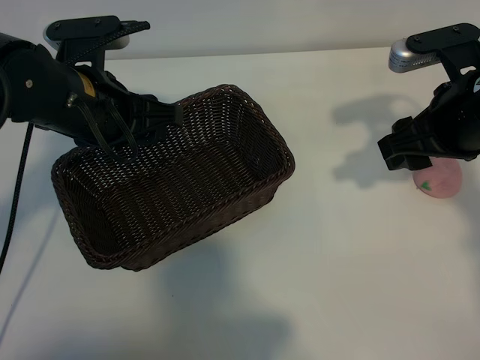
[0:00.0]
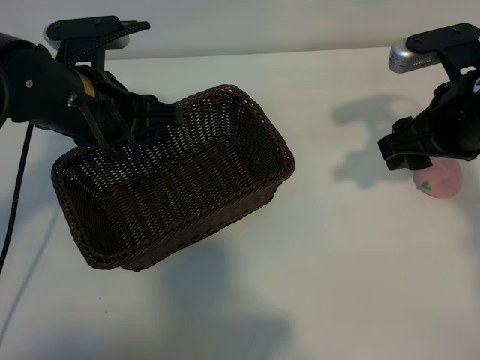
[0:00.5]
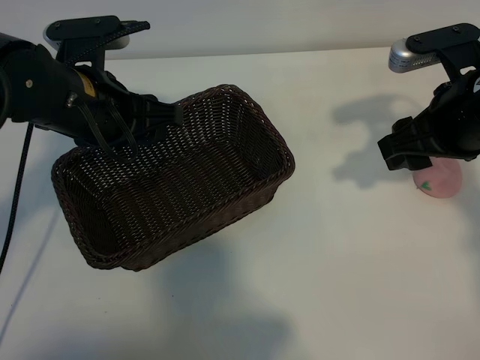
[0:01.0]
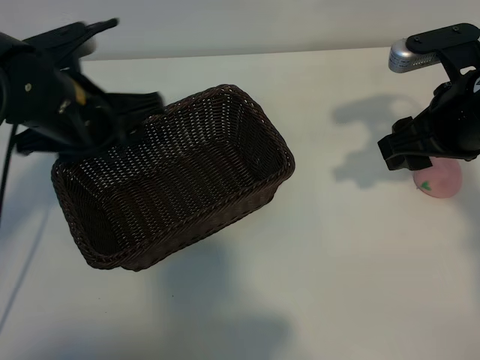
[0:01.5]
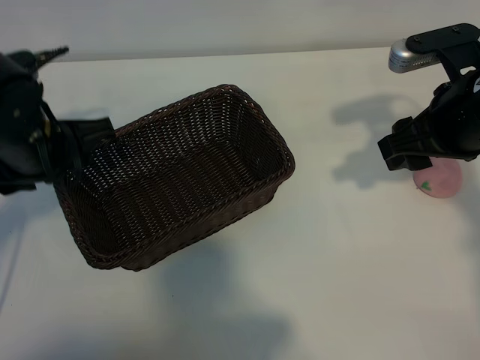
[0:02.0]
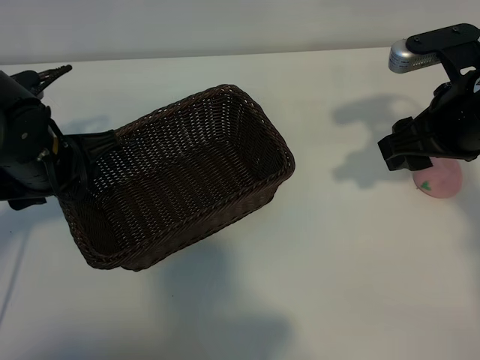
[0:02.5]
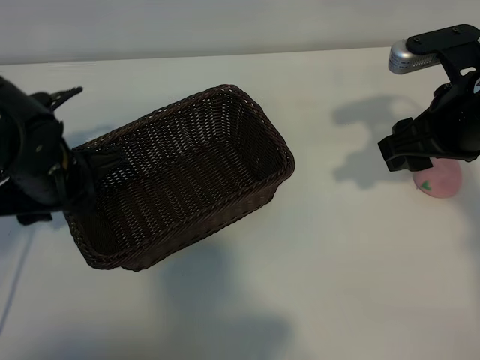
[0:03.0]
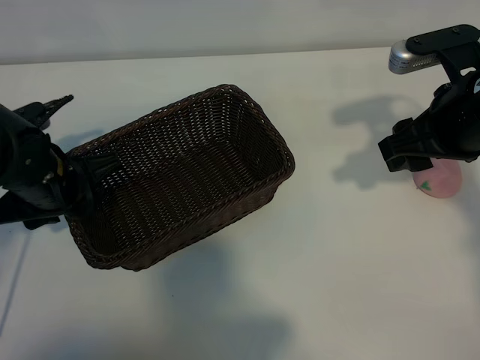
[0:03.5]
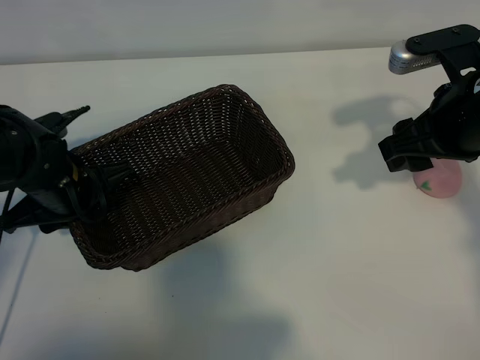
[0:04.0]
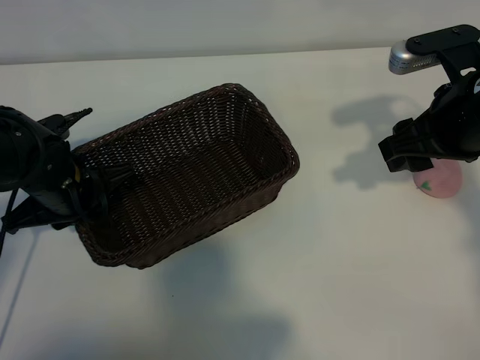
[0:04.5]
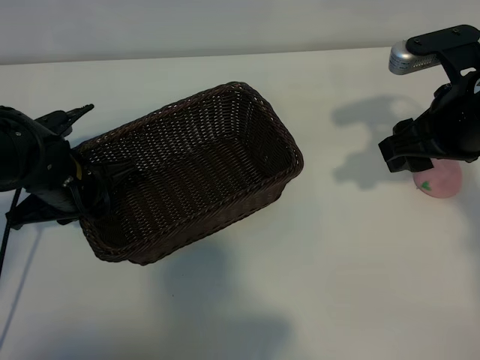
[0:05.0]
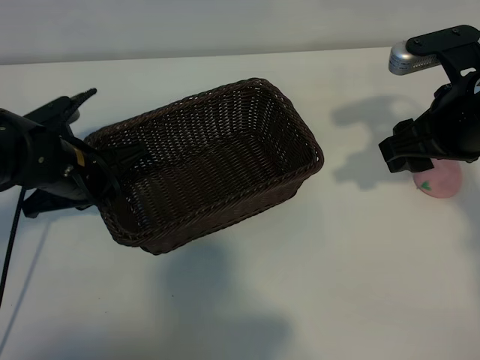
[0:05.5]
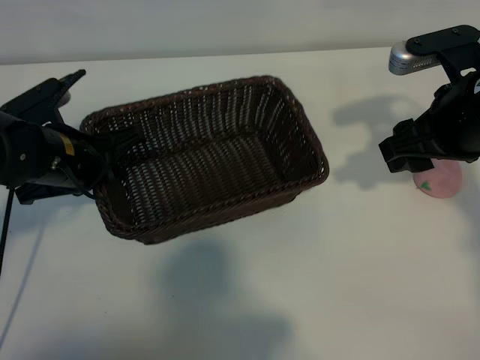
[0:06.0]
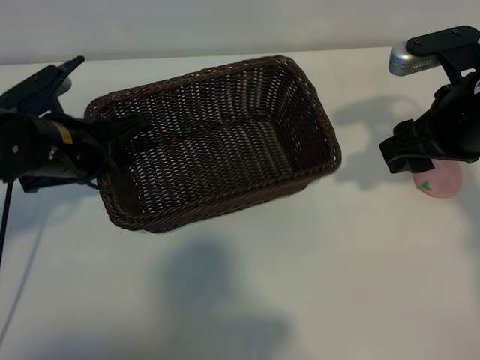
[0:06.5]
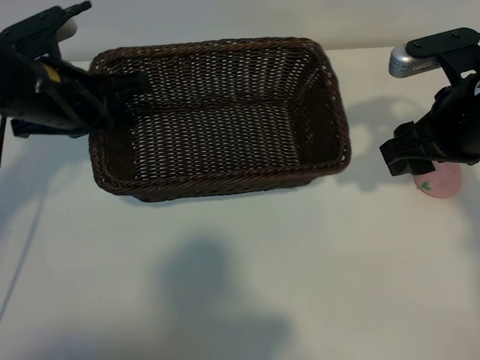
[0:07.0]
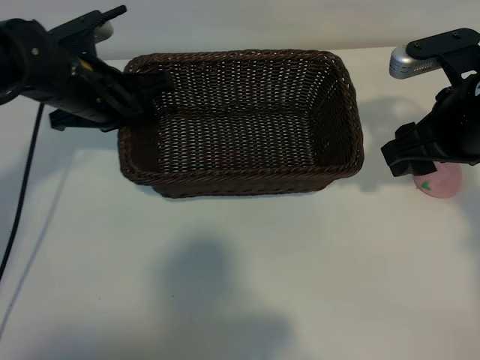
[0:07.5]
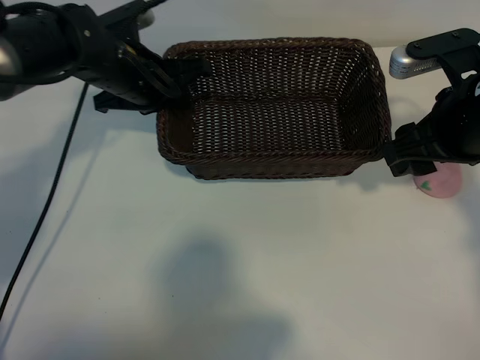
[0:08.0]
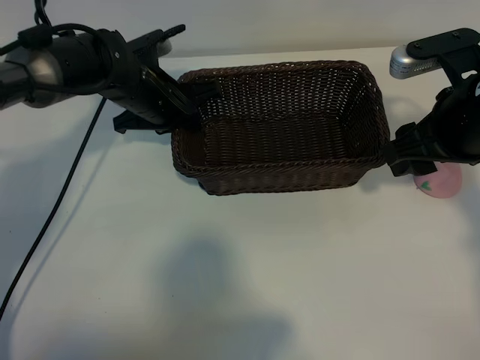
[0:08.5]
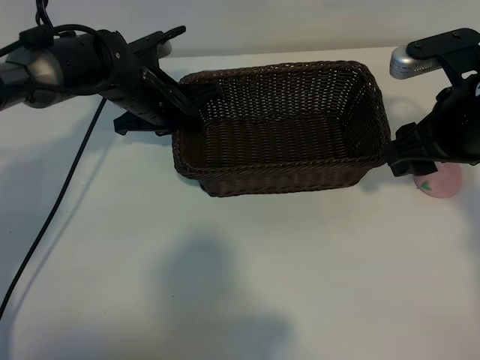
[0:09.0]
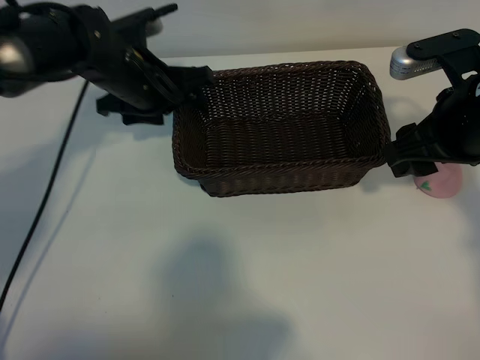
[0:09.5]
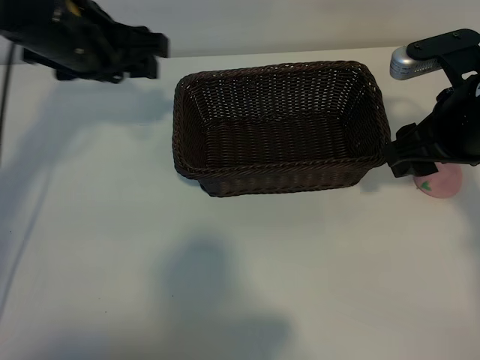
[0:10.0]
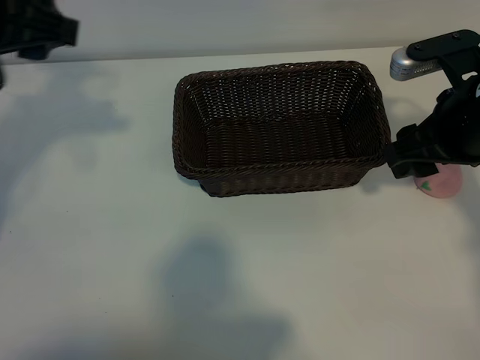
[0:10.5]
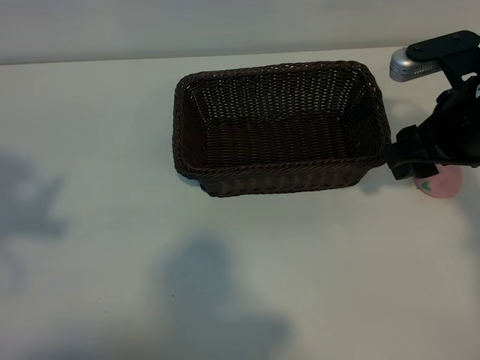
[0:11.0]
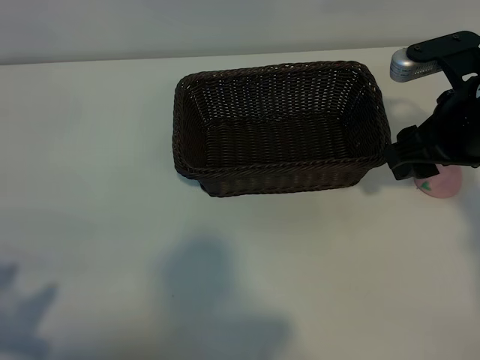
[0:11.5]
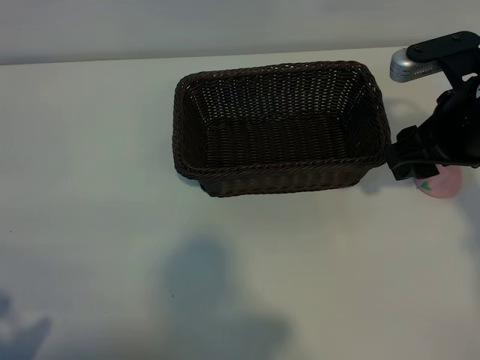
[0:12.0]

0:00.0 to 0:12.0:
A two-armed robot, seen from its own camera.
Task of the whole recording: pick up the peach and put it into the basket.
Step, 0:01.5 to 0:04.5: Grasp the basket with left gripper.
Step, 0:05.0 to 0:09.5: Place the basket in the center of view with left gripper.

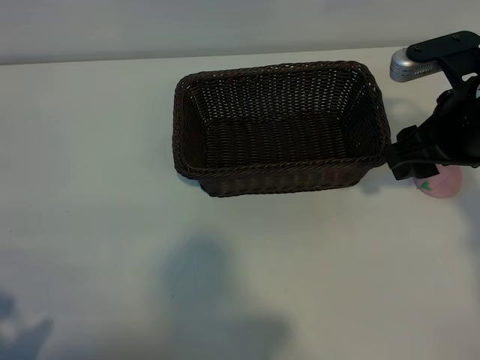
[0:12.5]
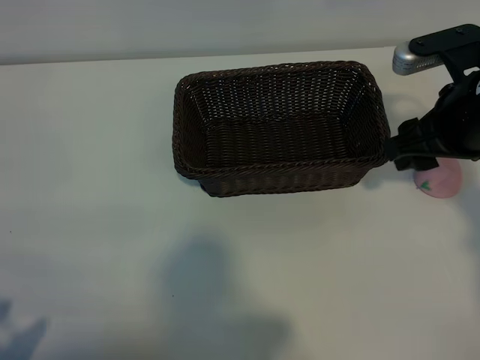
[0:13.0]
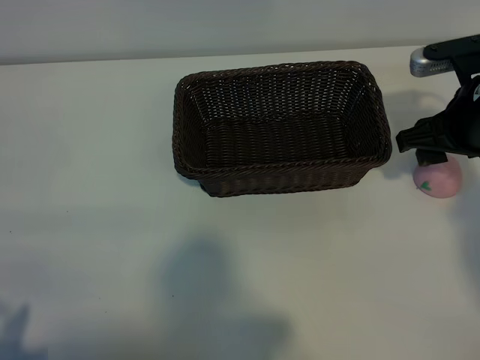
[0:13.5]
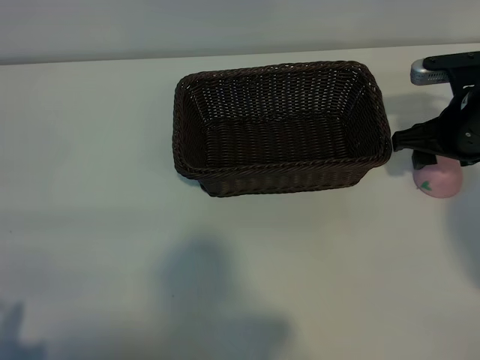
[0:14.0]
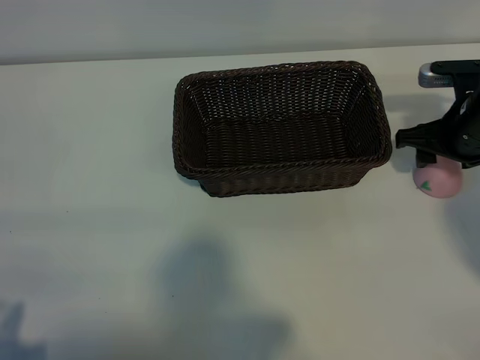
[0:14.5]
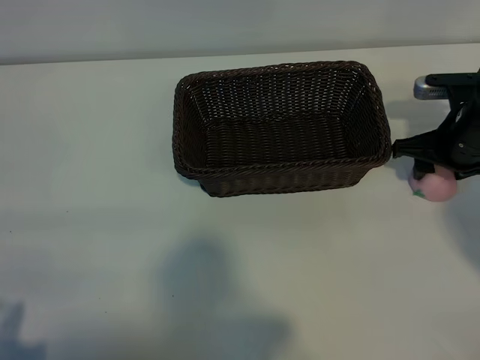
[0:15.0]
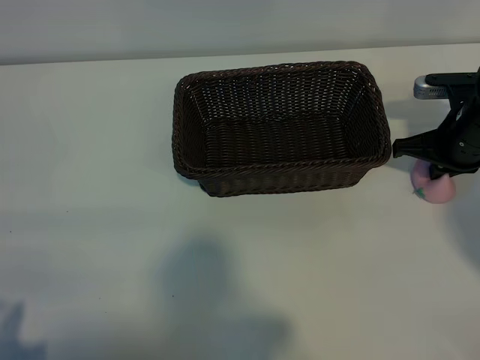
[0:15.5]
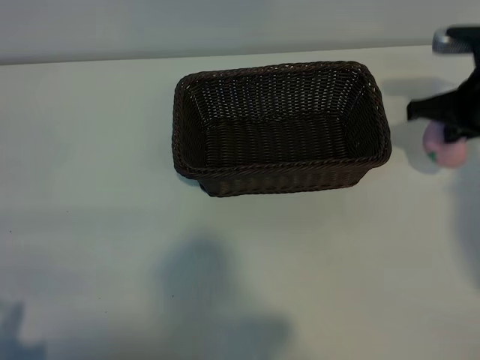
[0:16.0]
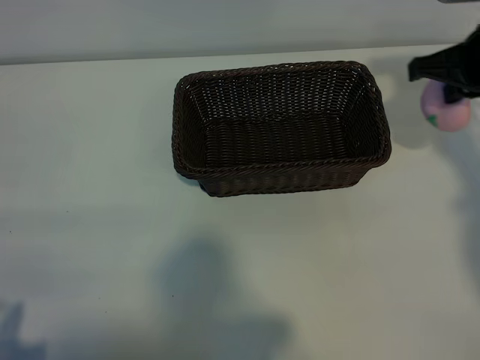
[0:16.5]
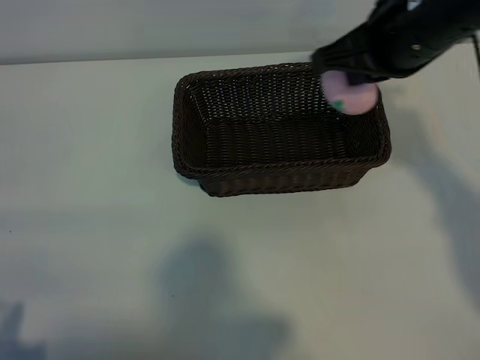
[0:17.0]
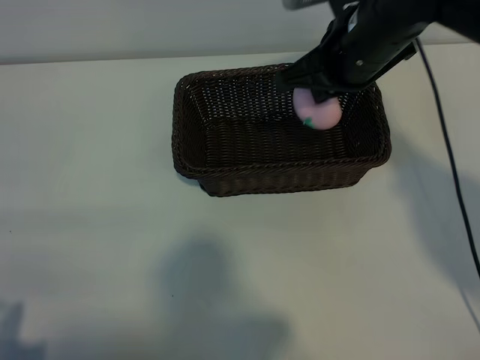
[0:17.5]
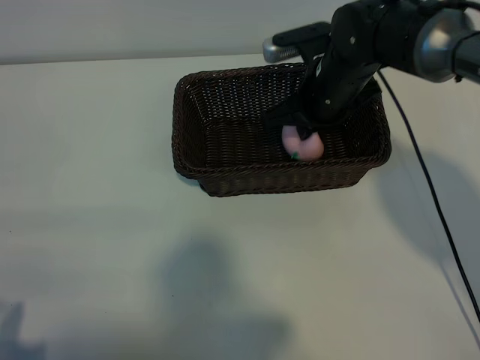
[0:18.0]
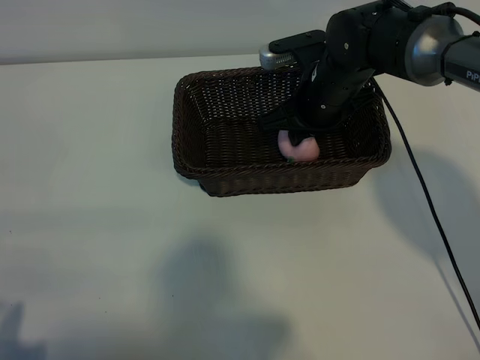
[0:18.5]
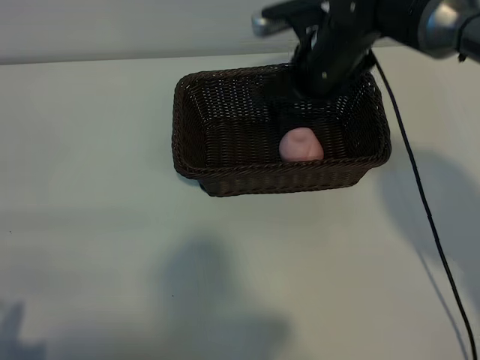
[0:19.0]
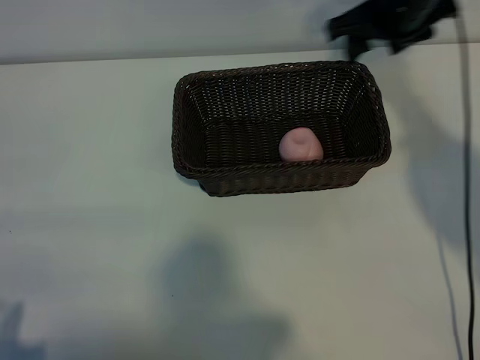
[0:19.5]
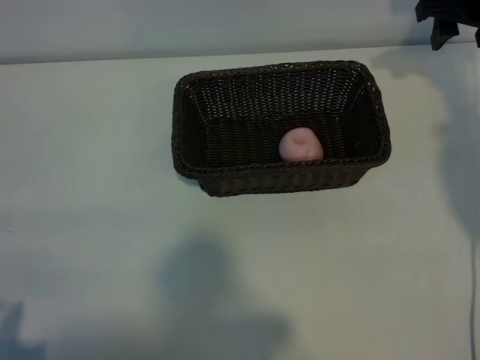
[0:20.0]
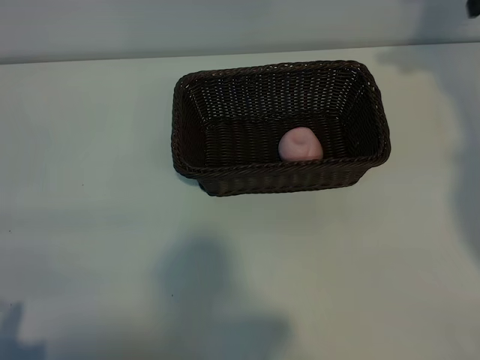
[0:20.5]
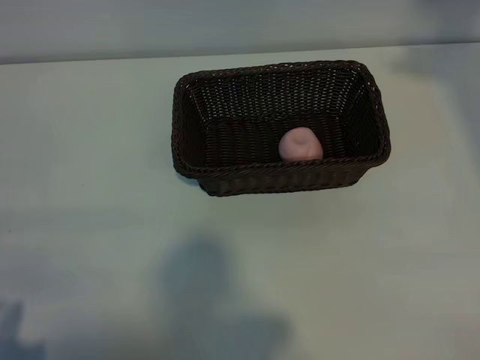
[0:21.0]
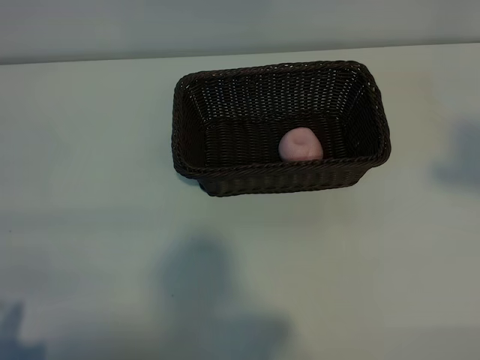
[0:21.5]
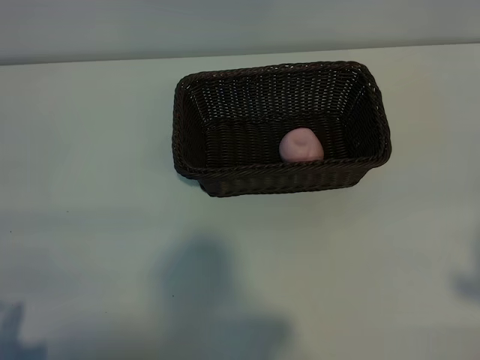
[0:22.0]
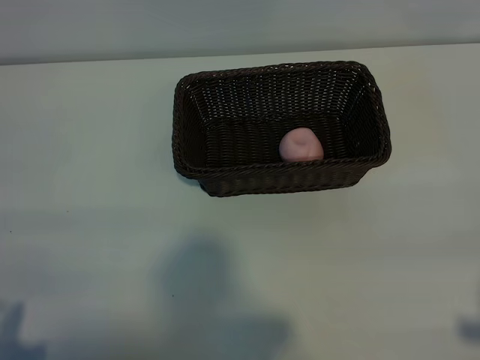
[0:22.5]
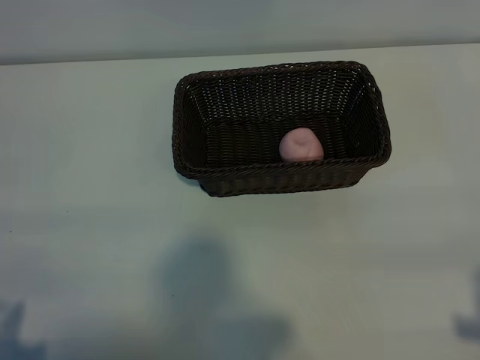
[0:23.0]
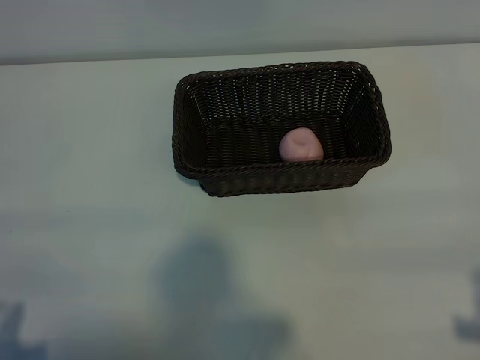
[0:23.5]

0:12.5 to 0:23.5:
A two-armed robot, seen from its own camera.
Task of the whole recording: pick up the peach and put it into the basket.
Step, 0:12.5 to 0:15.0: Grasp the peach with right gripper.
Step, 0:16.0 to 0:18.5: Place the peach in the basket with right gripper.

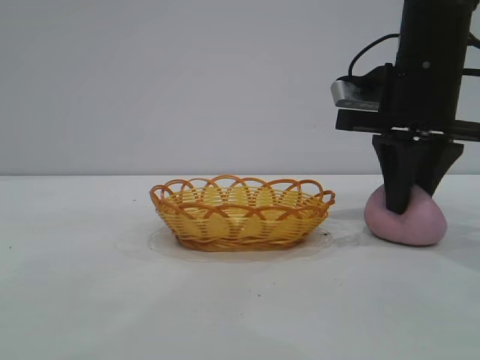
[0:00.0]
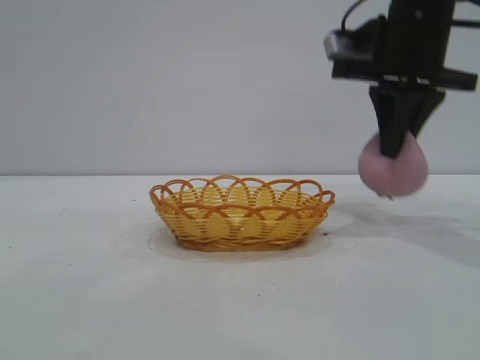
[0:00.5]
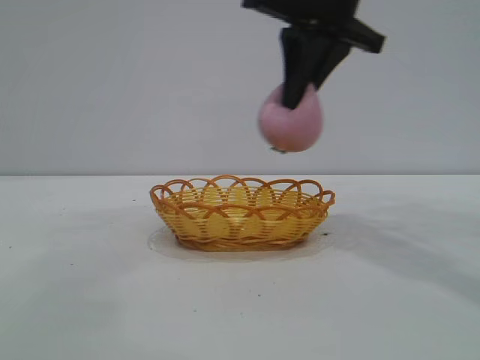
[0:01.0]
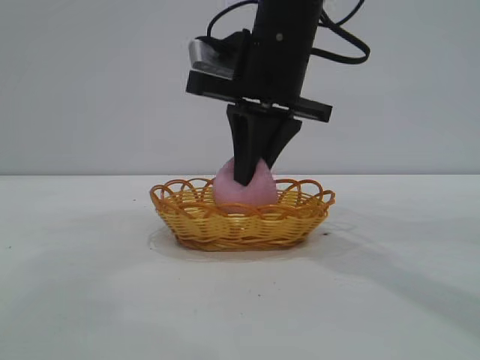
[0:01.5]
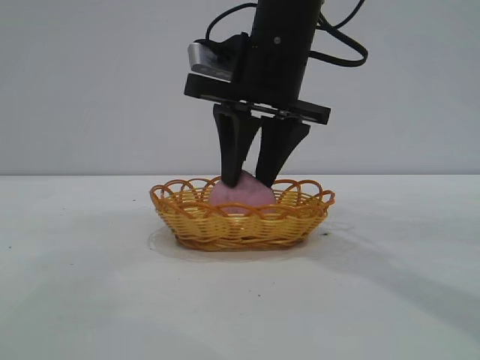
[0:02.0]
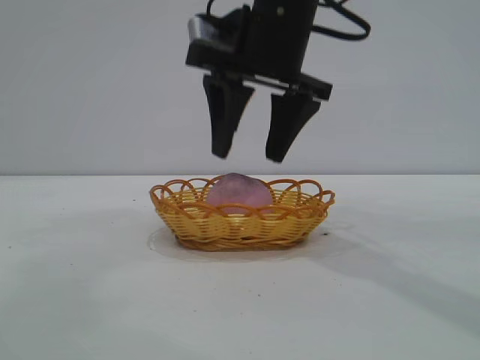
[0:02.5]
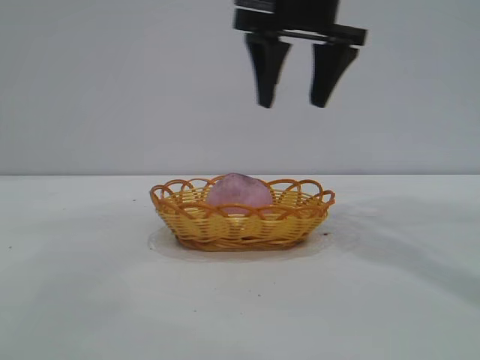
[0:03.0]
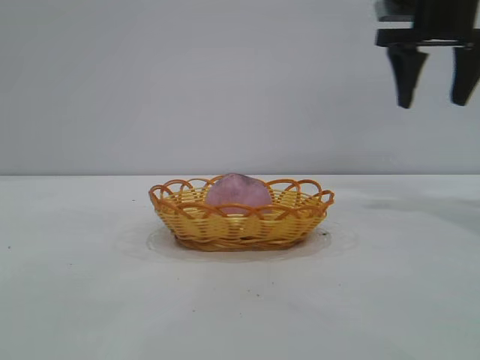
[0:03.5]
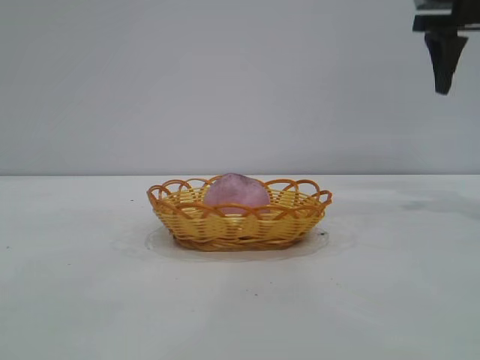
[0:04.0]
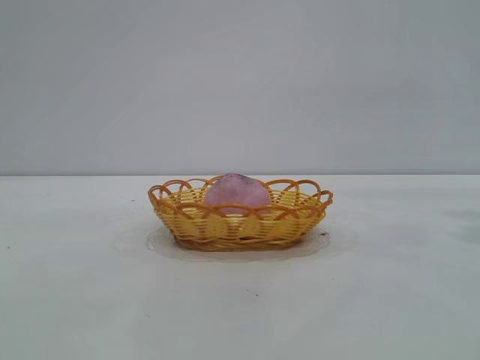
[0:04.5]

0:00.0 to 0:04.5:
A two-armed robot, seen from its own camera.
Task of the whole recording: pick up the peach and put it into the basket.
Step, 0:01.0 to 0:02.5: place the peach into the basket.
